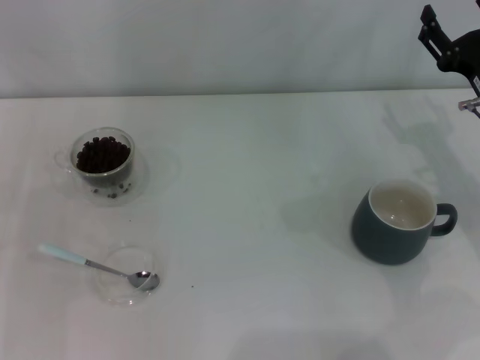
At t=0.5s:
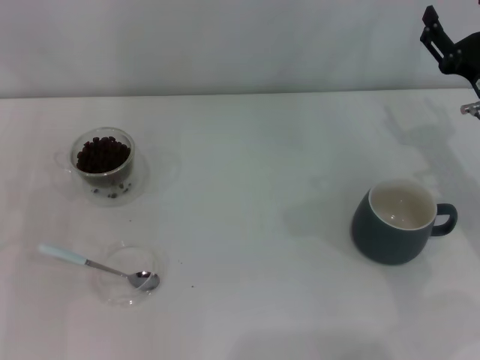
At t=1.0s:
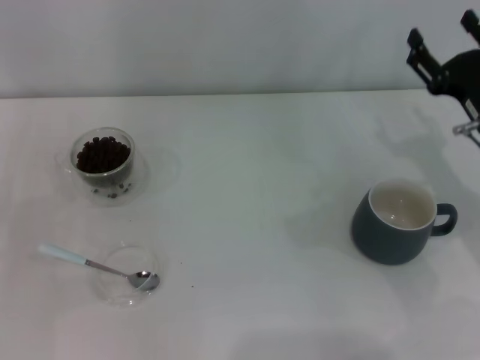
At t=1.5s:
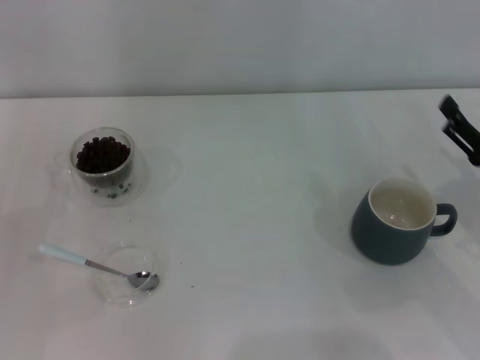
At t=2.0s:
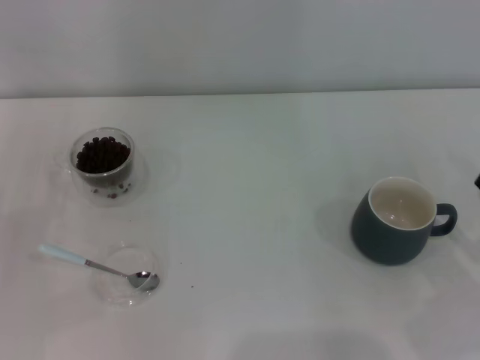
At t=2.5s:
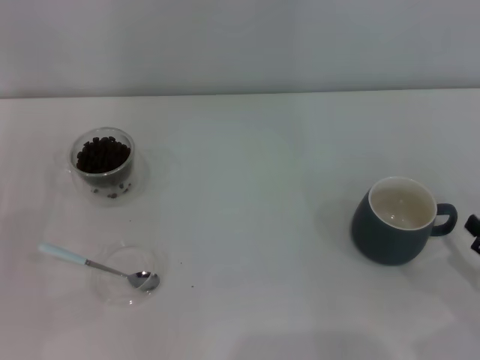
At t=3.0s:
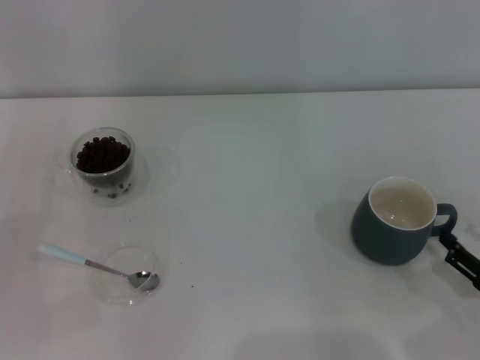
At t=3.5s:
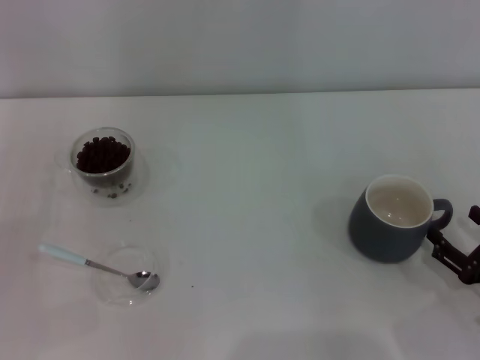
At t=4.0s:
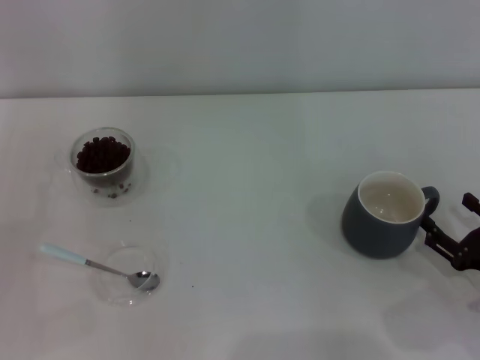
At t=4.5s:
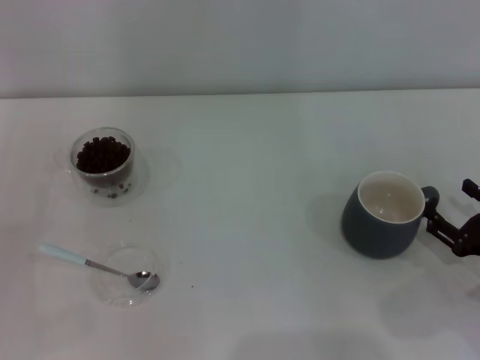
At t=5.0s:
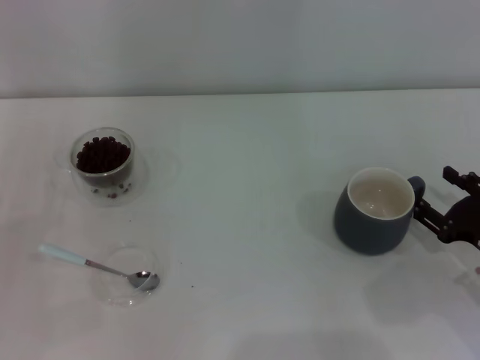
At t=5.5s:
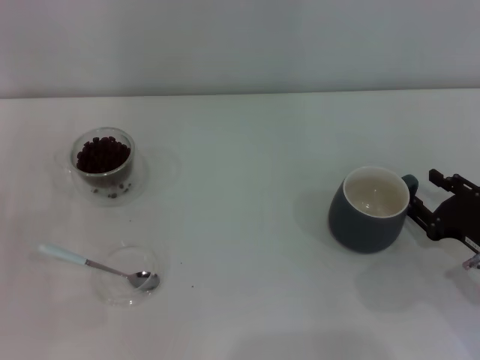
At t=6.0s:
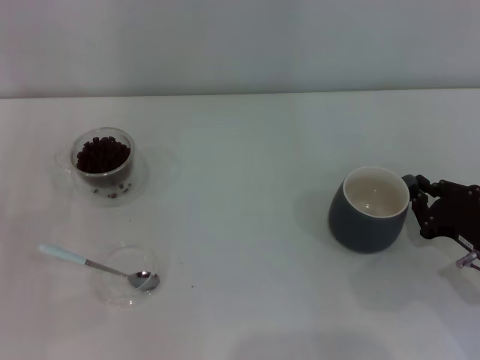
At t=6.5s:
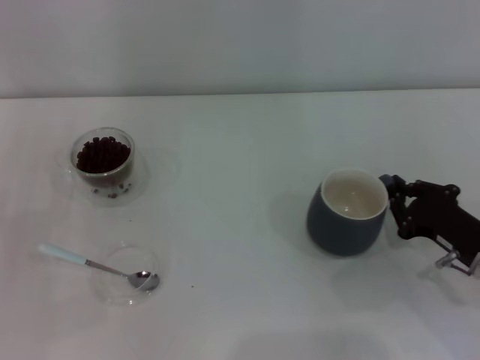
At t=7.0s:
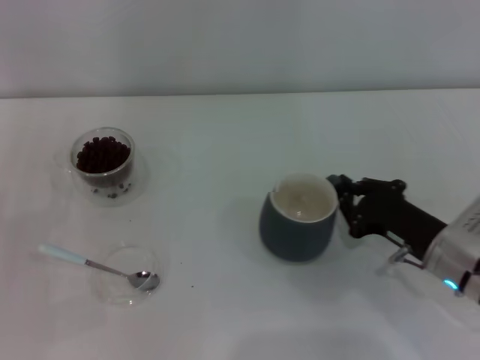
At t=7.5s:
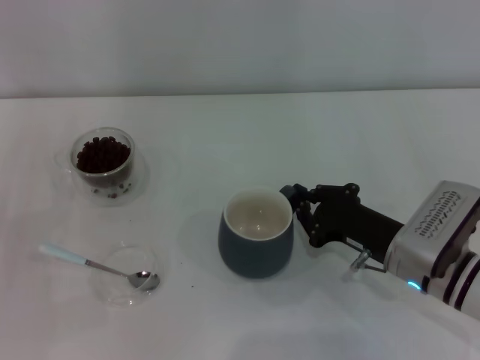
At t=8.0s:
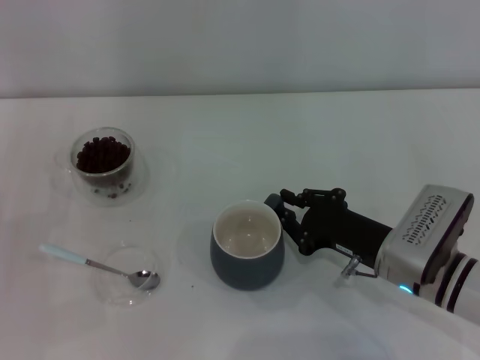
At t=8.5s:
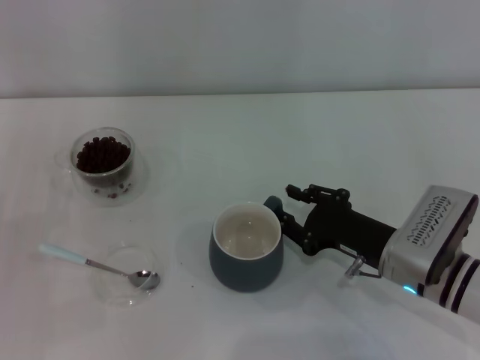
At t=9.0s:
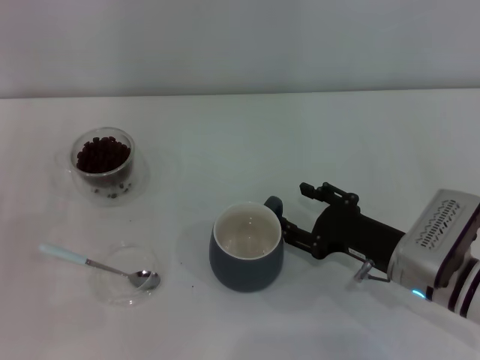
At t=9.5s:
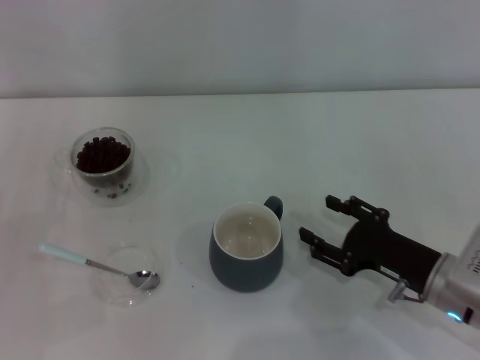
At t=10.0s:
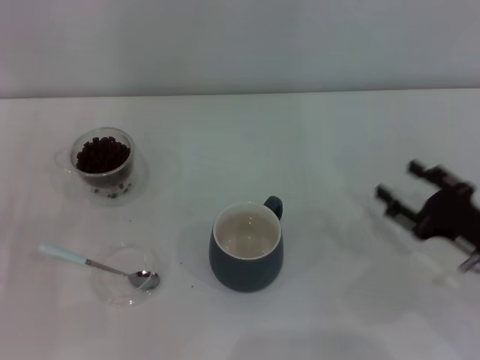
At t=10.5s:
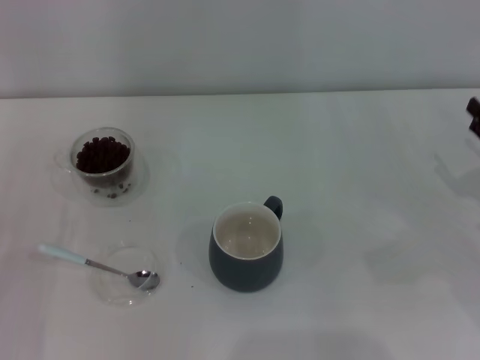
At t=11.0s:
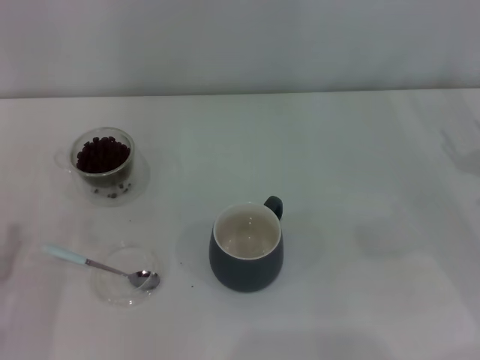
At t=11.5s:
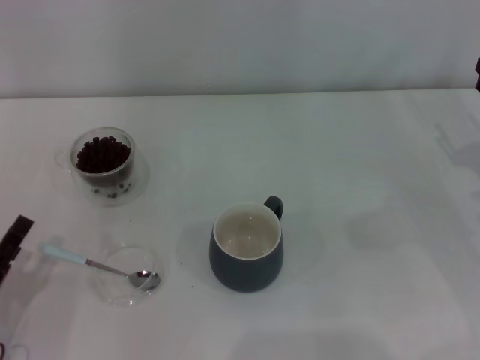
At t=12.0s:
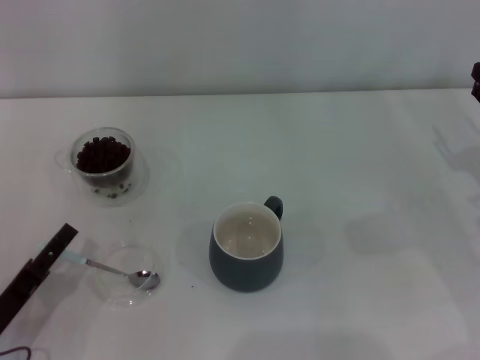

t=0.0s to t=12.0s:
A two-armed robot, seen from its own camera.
Task of the whole recording: Use a blue spoon to take out the coffee beans from the glass and pour them into the gray cup.
Step, t=0.0s to t=9.5s: Move the cup to the center of view with the left gripper.
t=0.0s to t=2.0s: The right gripper moves backward and to the right, some 15 cm.
t=2.0s to t=4.0s: The right gripper shifts by about 5 cm.
t=4.0s to t=6.0s: The right gripper goes approximately 5 cm forward, and closes.
t=6.0s to t=8.0s: The right gripper heads to the left, covering about 10 cm.
t=8.0s to t=10.0s: The right gripper heads to the right, covering about 10 cm, and opens up.
t=10.0s to t=12.0s: The right gripper heads forward, covering about 5 cm. The left gripper moves to the right and downward, roughly 10 cm.

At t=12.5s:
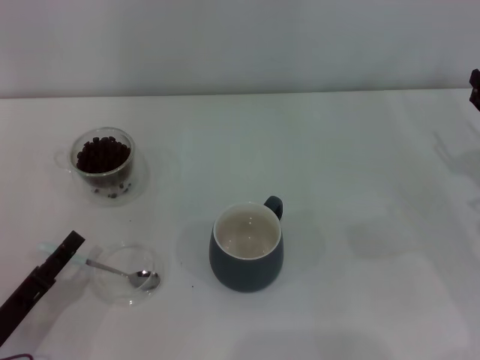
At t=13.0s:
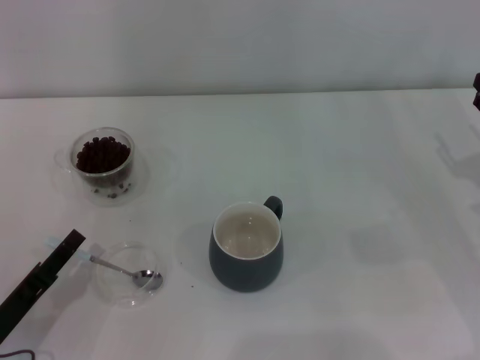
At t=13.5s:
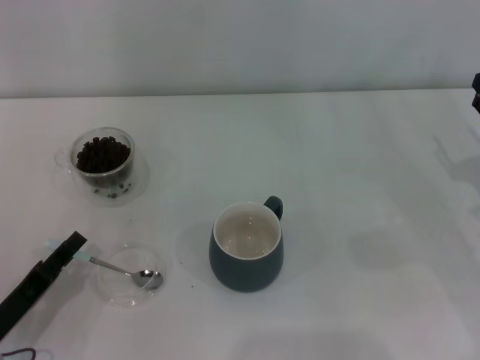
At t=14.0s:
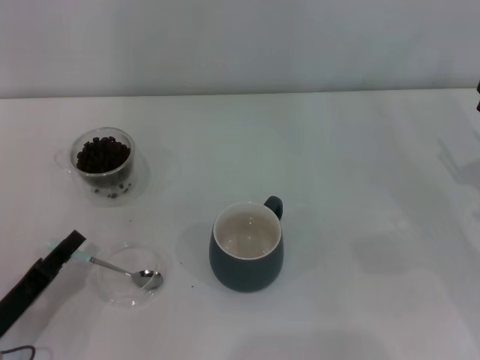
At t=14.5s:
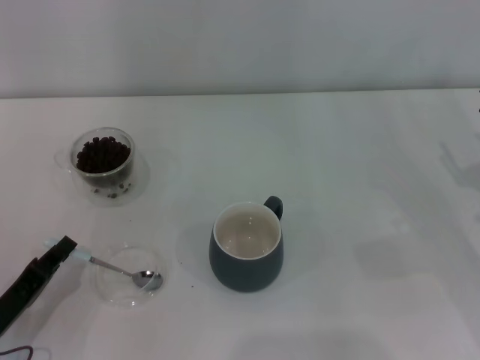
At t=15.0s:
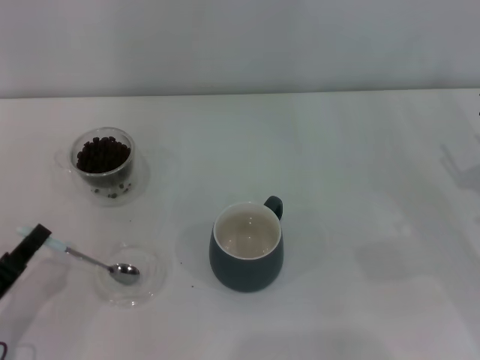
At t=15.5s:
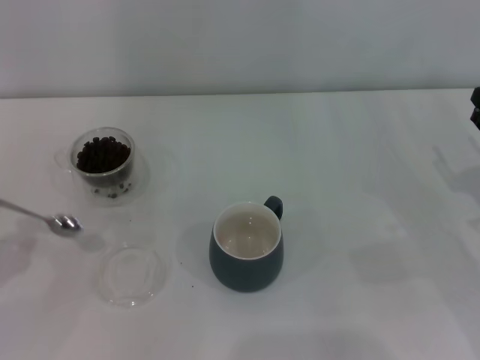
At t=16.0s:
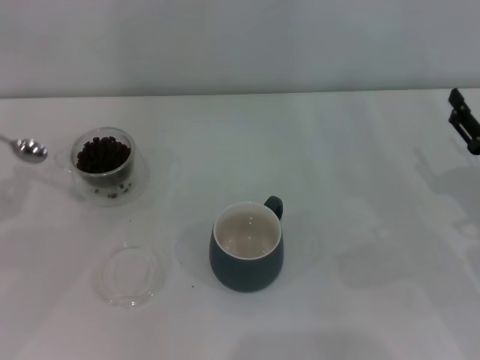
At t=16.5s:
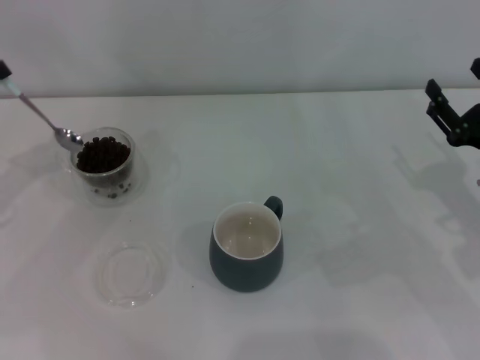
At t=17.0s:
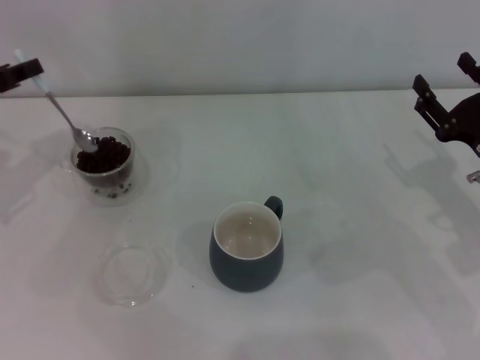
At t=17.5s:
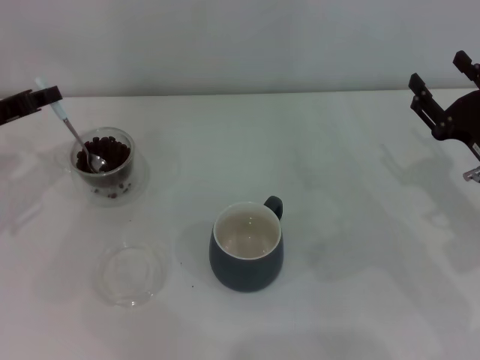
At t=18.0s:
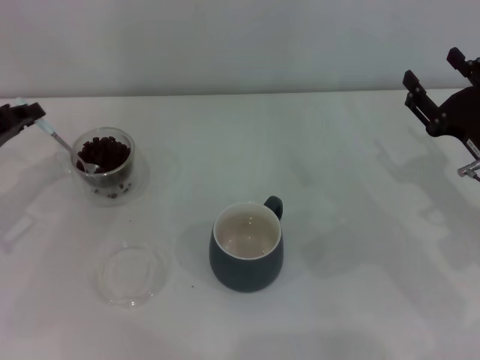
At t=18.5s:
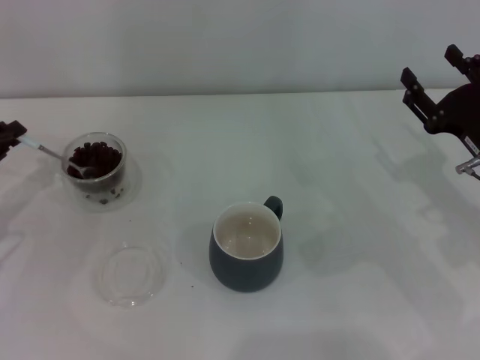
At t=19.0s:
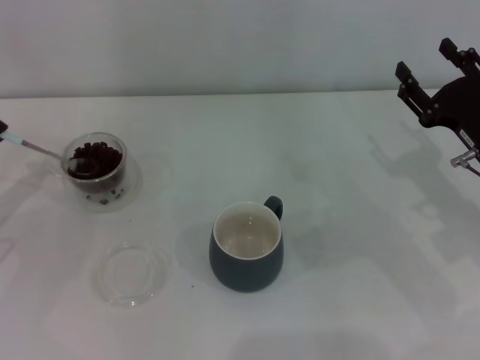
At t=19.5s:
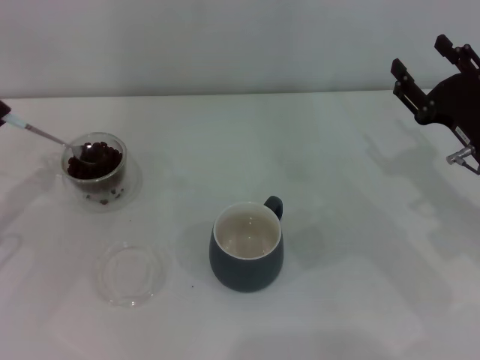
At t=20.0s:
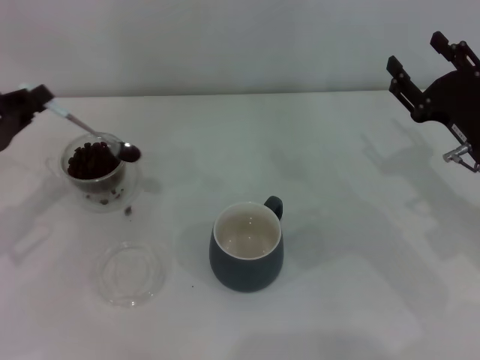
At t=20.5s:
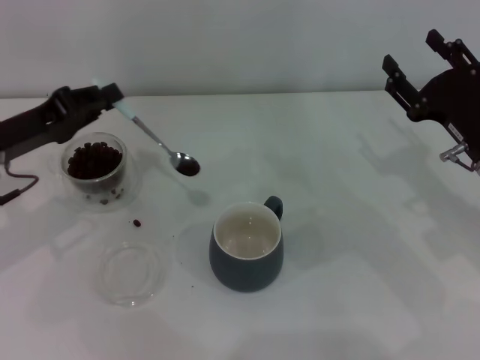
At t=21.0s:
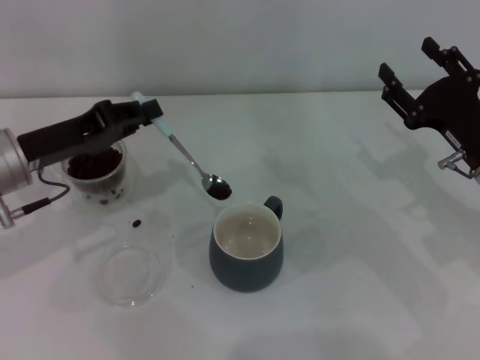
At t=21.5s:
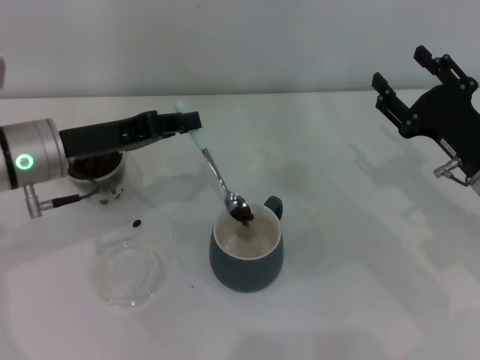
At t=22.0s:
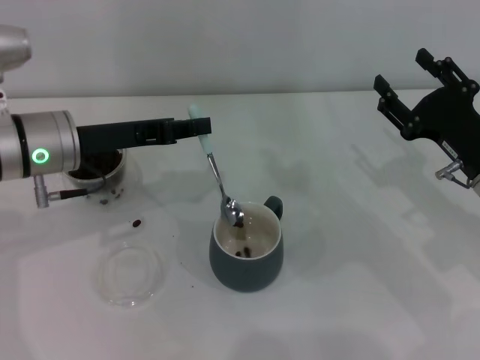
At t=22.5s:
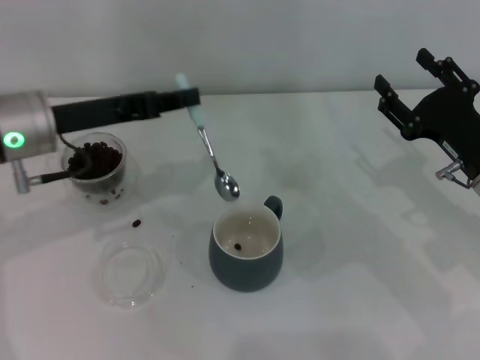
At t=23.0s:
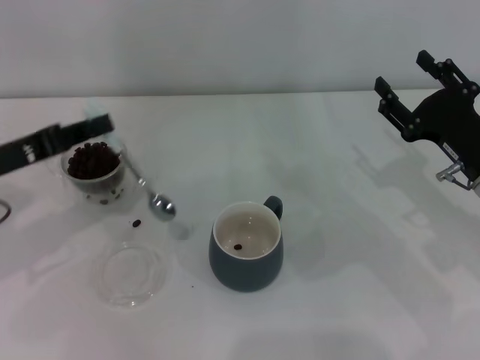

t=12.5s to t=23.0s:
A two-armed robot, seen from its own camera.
Task of the whole recording: Use a blue spoon to take out the coffee beans from the glass and pour them into the gray cup.
Step, t=12.5s to t=15.0s: Pick up the spoon with the right gripper.
Step, t=15.5s to t=22.0s: Scoop a spoonful of beans into the cup with the right gripper.
t=12.5s to t=14.5s: The left gripper closes its fingers.
t=14.5s to t=16.5s: The left gripper shifts some 25 cm forward, upward and to the left.
t=16.5s to t=19.0s: The left gripper is displaced downward by approximately 5 cm.
t=19.0s to t=21.0s: The left gripper goes about 10 cm to the right.
t=21.0s to t=23.0s: The left gripper moves about 5 cm.

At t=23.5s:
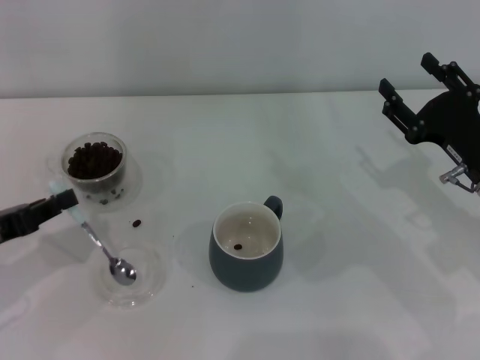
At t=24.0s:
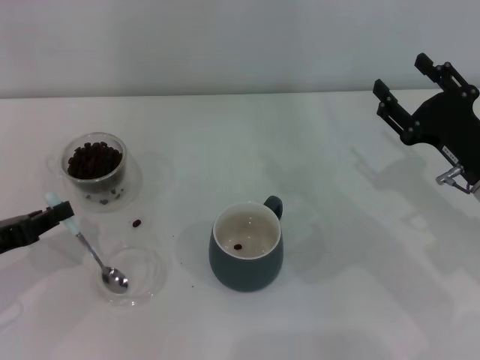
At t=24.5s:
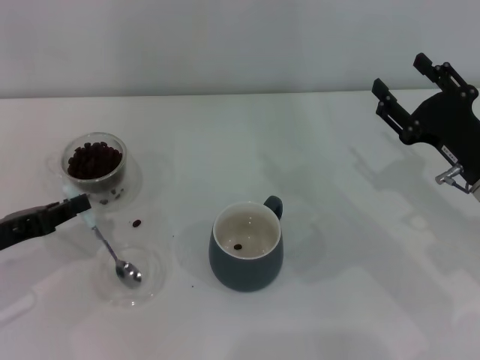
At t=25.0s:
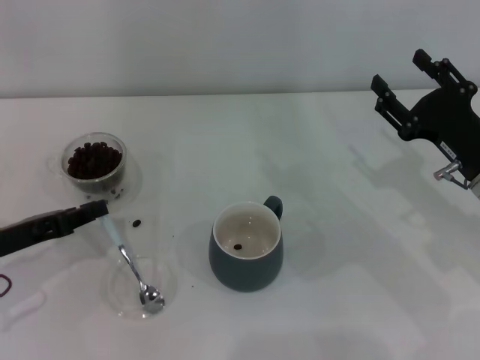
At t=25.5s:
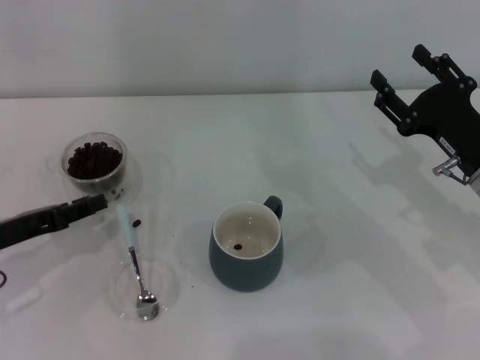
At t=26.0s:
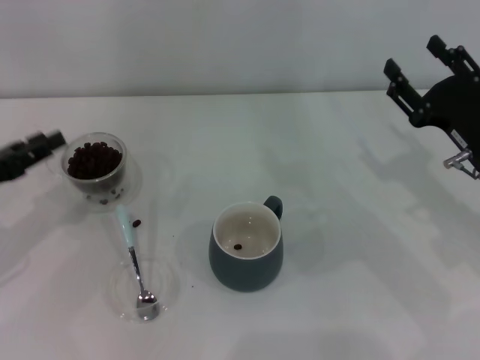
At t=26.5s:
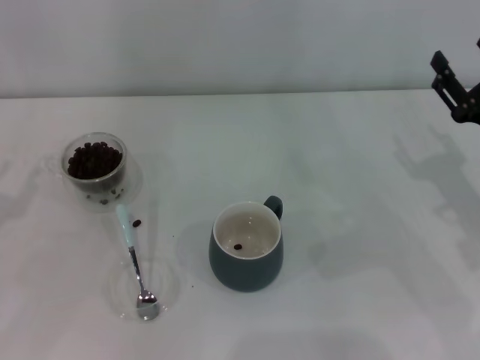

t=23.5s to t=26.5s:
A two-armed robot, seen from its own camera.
Task of the whole recording: Use a blue spoon to take out the coffee beans from the glass and pour them into the gray cup.
Step, t=23.5s to t=25.0s: Place the spoon back in its original place with the right gripper.
t=23.5s to t=25.0s: There are only small adjustments of the grippers.
t=25.0s to t=26.5s: The left gripper heads to the left, covering approximately 5 cm, and opens up.
